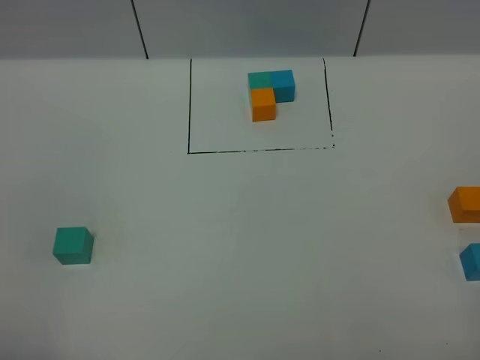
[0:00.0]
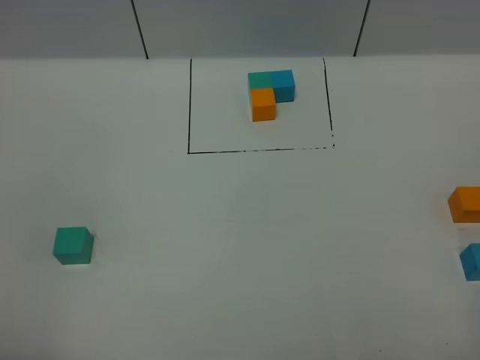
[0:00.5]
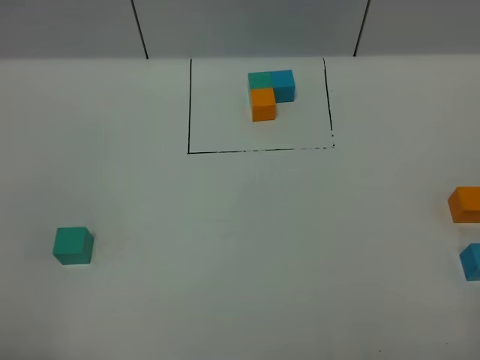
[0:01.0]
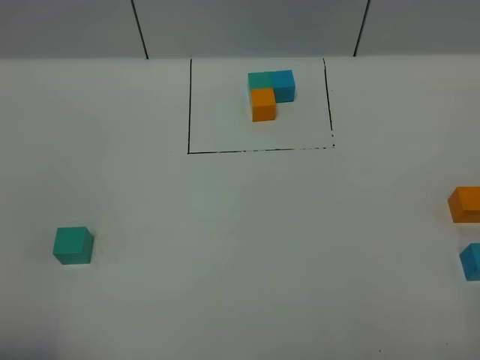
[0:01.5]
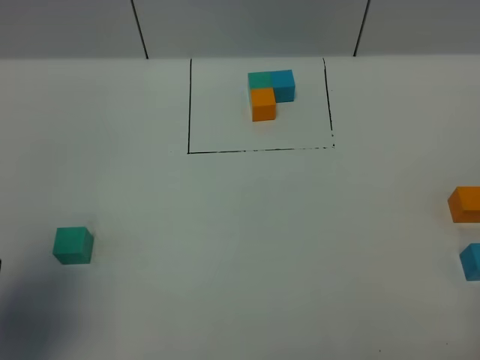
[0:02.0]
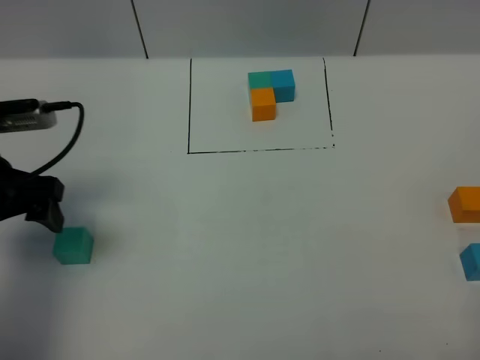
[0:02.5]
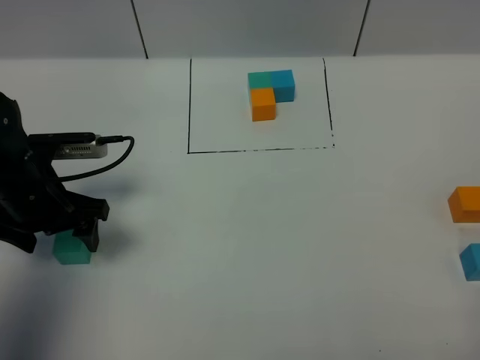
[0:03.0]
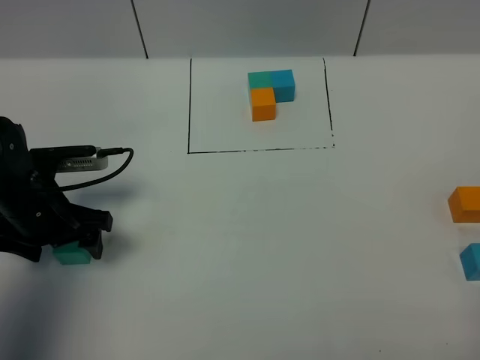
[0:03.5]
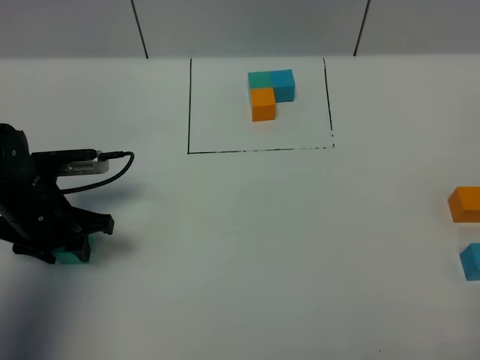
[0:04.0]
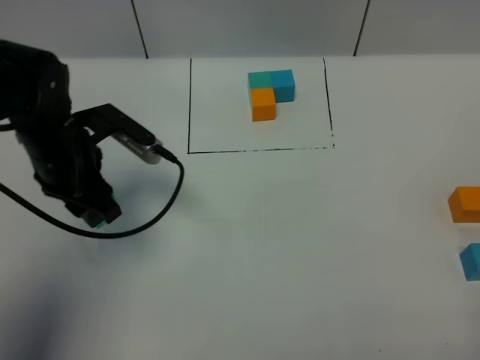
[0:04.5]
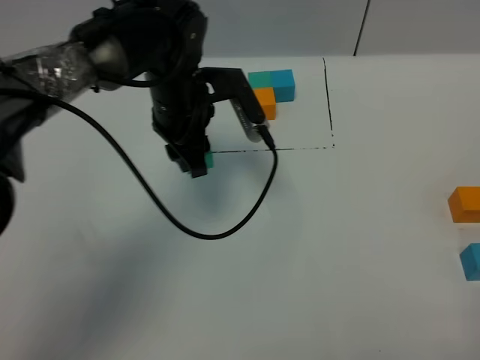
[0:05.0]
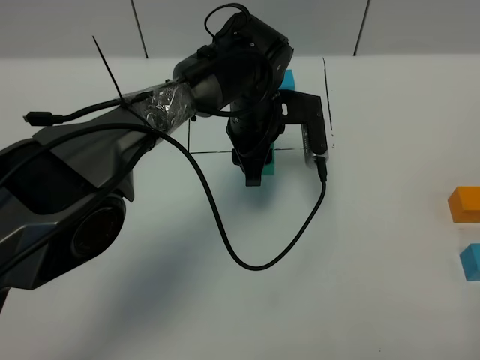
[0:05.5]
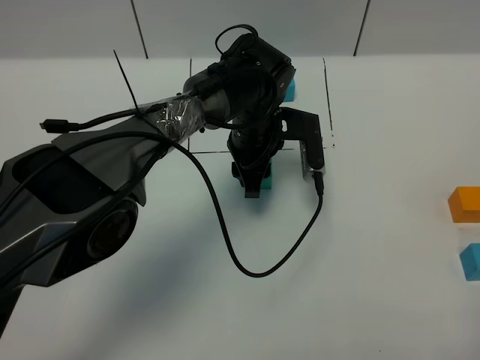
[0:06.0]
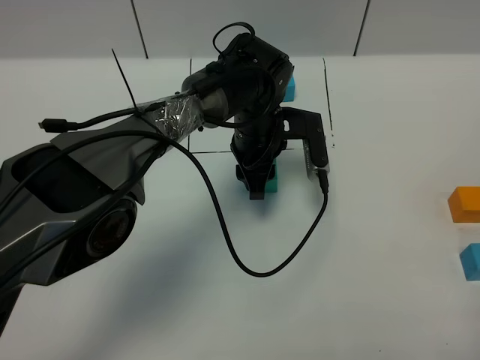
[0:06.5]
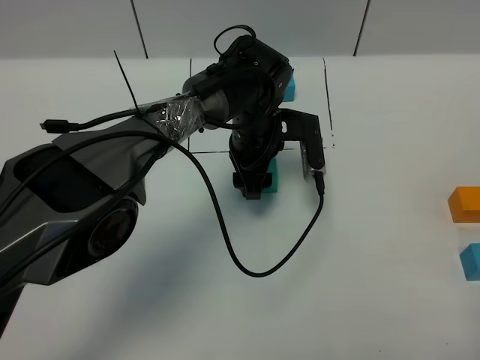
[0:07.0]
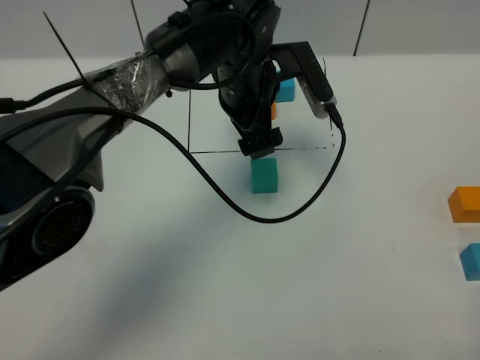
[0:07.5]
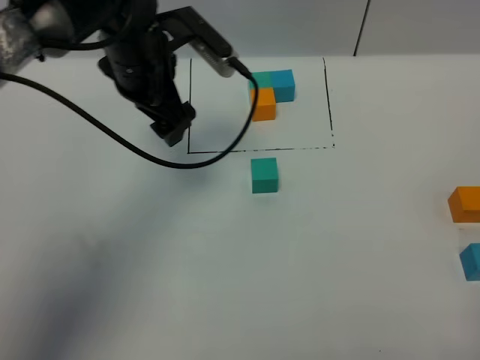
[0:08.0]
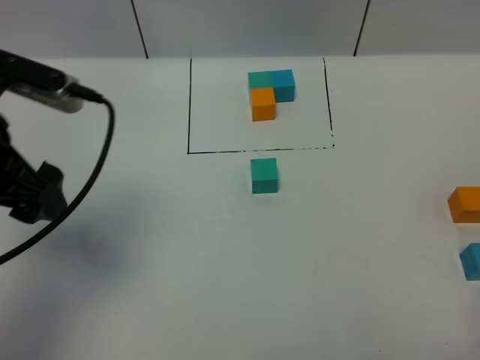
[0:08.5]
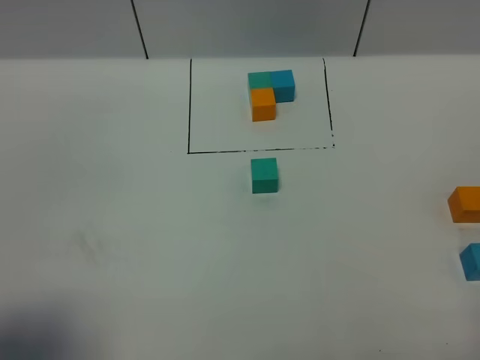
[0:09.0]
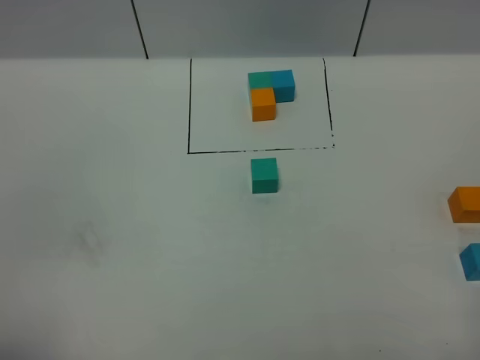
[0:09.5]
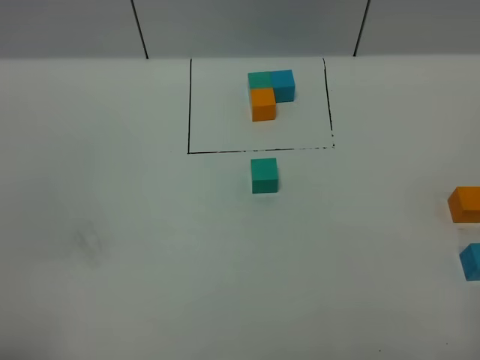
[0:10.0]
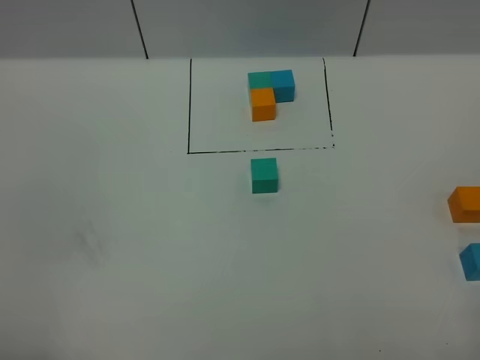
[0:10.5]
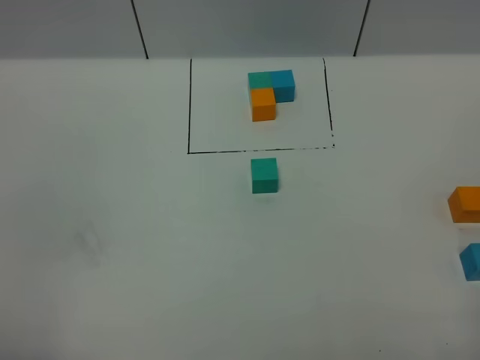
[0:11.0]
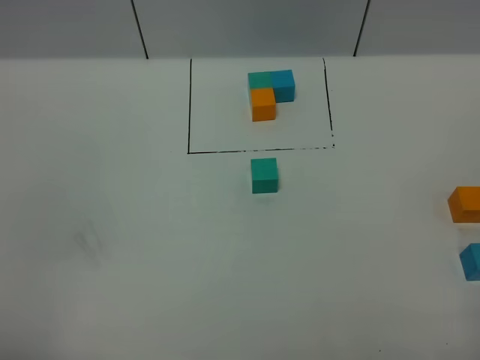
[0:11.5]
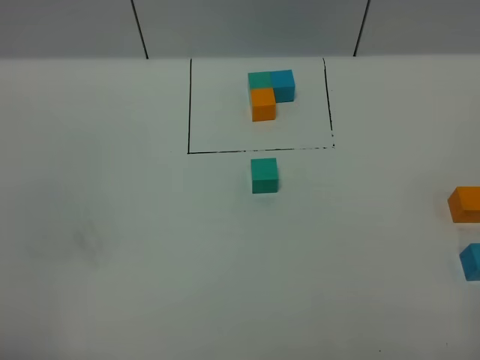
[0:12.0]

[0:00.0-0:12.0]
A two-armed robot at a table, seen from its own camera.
Task of the whole recording: According to the building block template in front, assemble the scattered blocks together.
Step, 0:00.0 to 0:06.5: Put the green build block in the center of the table.
0:00.0 to 0:02.0: The left gripper travels forward by approximately 15 cm.
0:02.0 to 0:04.0: The left gripper heads downward and forward, covering some 25 cm, and closes.
0:04.0 to 0:06.0: The left gripper heads to the right and forward, covering approximately 30 cm.
0:06.0 to 0:08.0: The left gripper travels to the left and upward by about 20 cm, and opens.
0:08.0 to 0:10.0: The left gripper travels backward and to the left by about 40 cm.

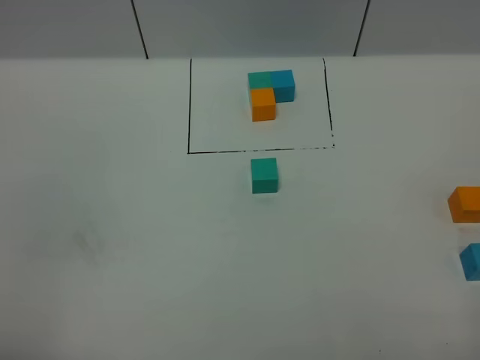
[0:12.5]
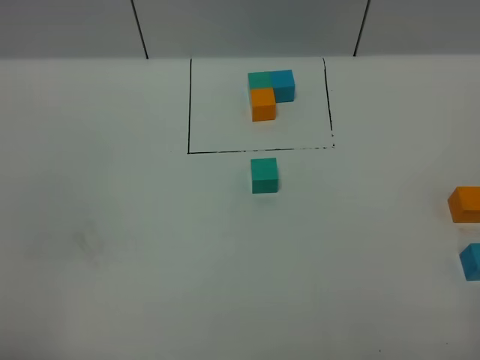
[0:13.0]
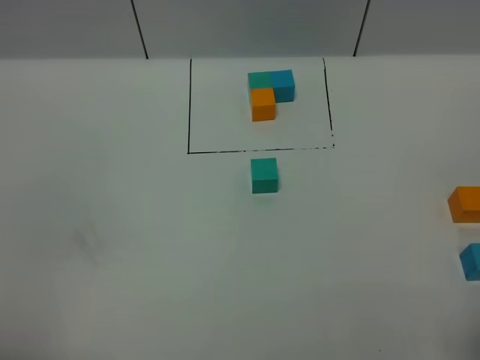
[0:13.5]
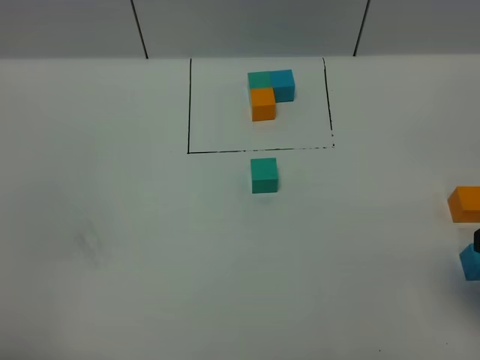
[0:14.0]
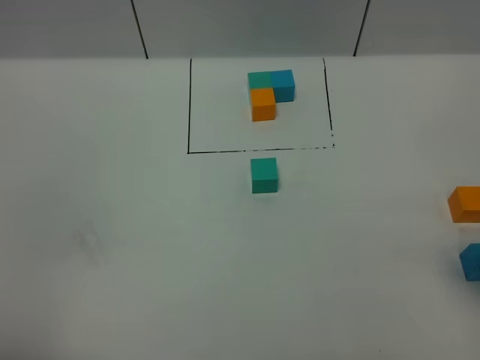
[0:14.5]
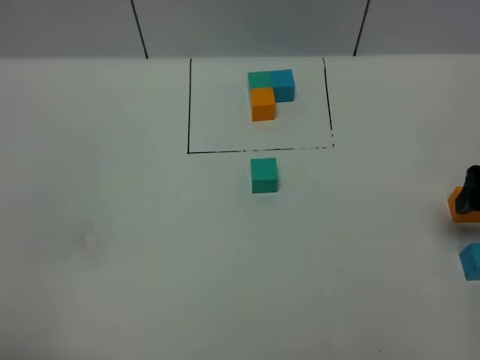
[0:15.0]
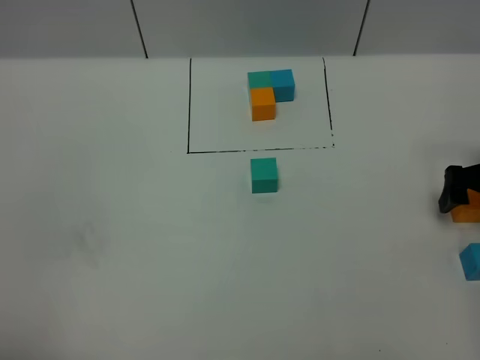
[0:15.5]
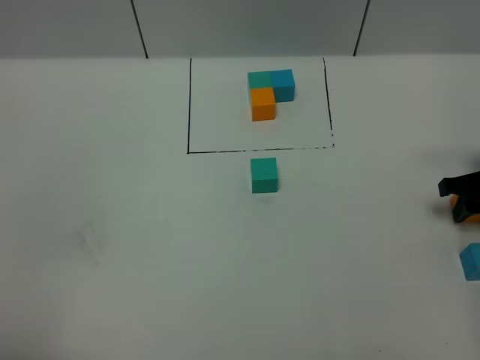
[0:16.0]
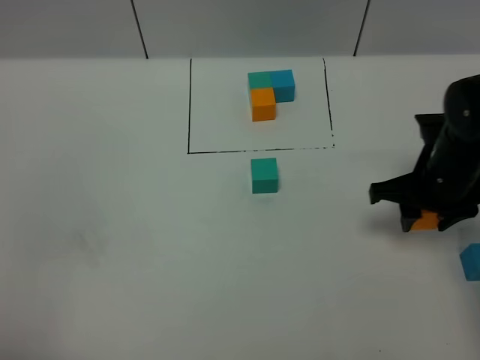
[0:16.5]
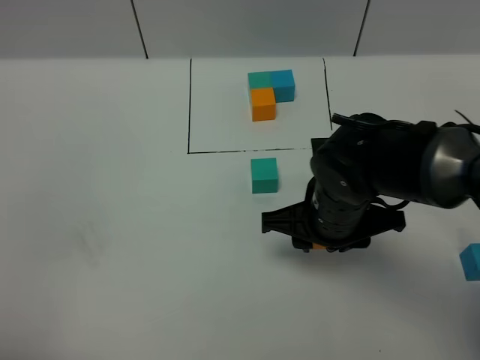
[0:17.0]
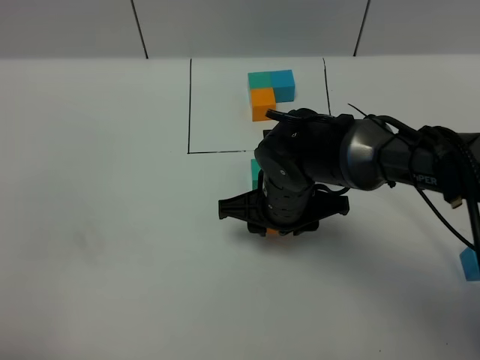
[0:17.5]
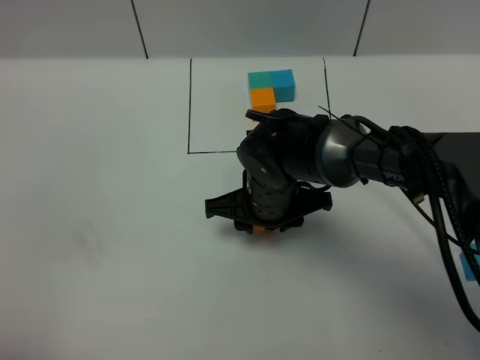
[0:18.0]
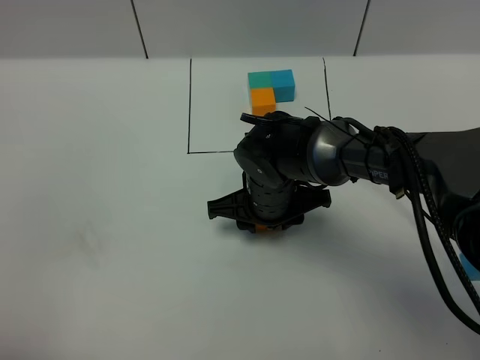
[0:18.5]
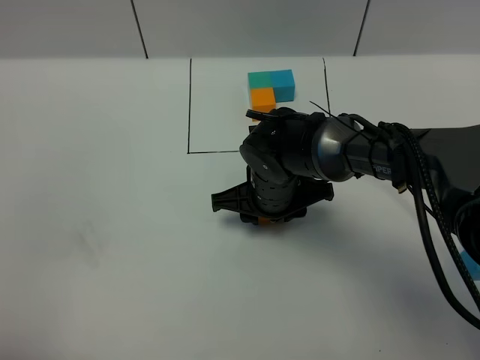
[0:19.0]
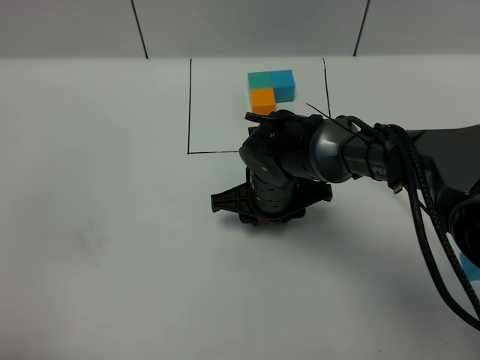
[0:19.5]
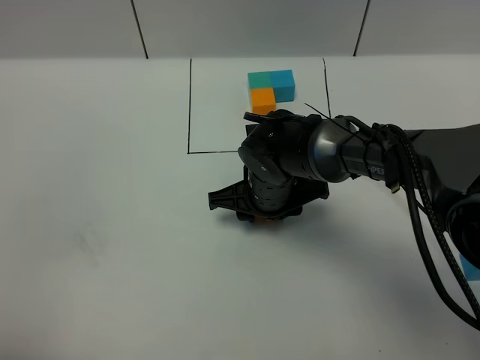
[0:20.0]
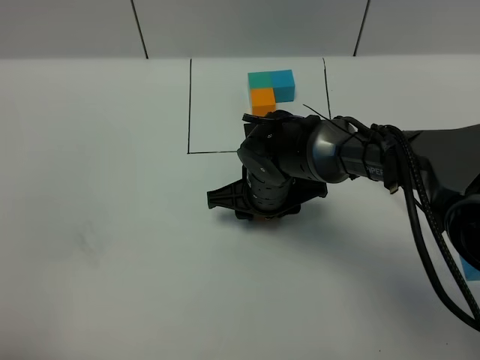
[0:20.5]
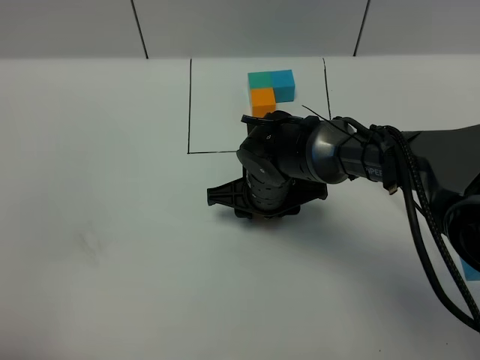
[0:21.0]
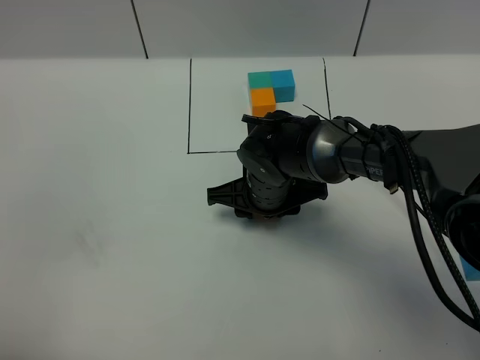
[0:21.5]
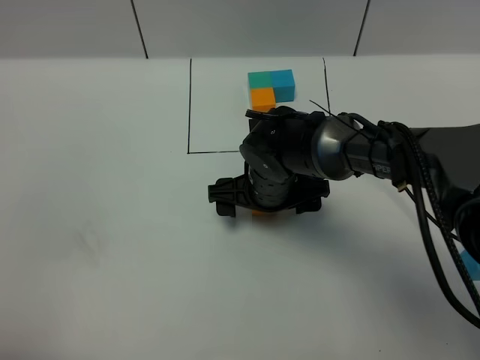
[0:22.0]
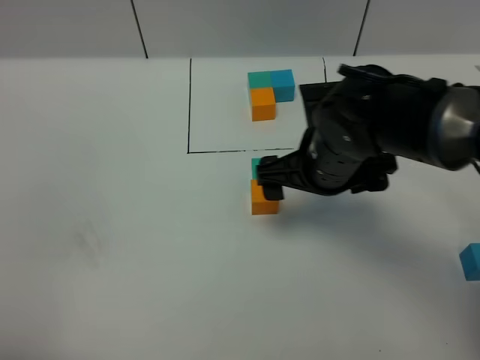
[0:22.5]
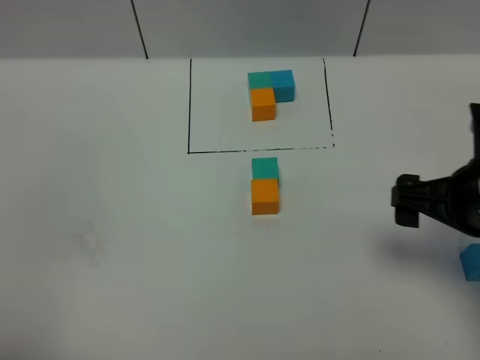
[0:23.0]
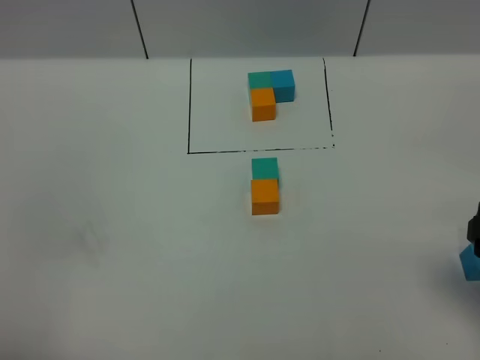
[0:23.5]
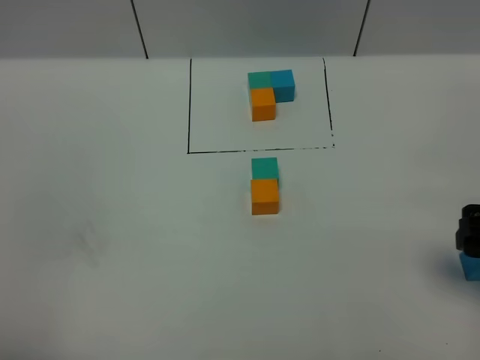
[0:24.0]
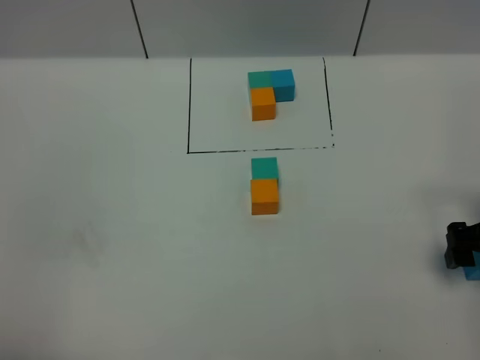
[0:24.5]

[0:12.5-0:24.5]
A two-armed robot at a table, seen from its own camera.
Task of the whole recording: According to the building block template in front, assemble the scattered blocks together.
Step, 0:12.5 to 0:21.0: Put the orange build block on the behind of the green build block.
0:14.5 to 0:16.5: The right gripper is displaced forward, downward and to the left by some 20 cm, and closes.
0:16.5 to 0:18.5: The right gripper heads to the left, covering some 20 cm.
0:18.5 to 0:20.5: The grippers move only a little.
0:20.5 to 0:22.5: The right gripper is displaced upward and to the right by approximately 15 cm, and opens up.
0:22.5 to 0:24.5: The right gripper heads to the right, covering about 20 cm.

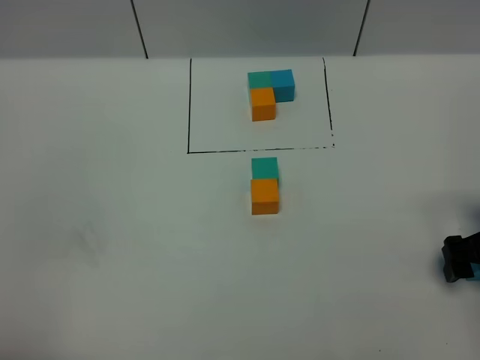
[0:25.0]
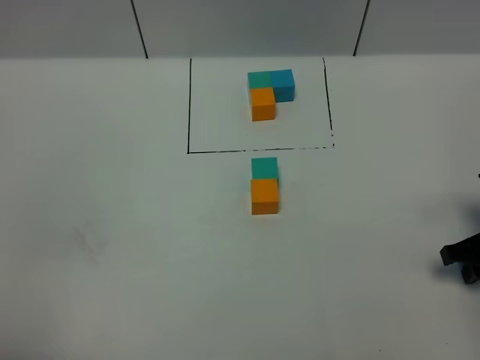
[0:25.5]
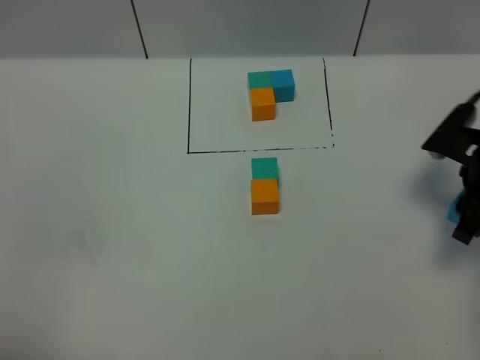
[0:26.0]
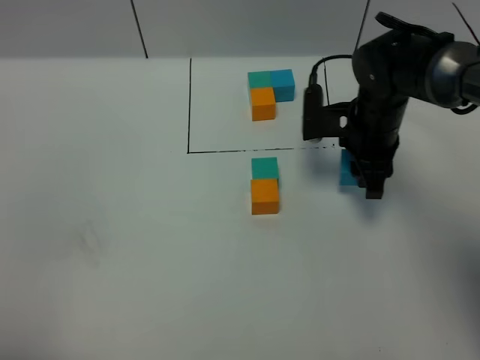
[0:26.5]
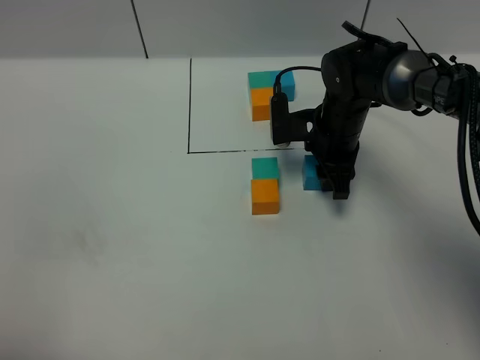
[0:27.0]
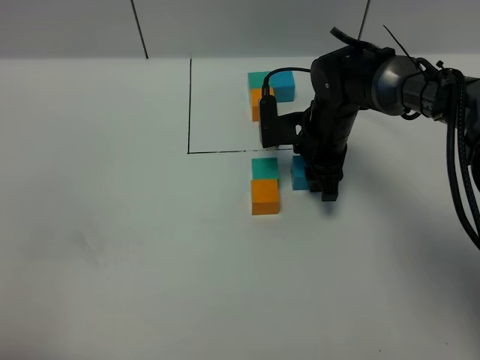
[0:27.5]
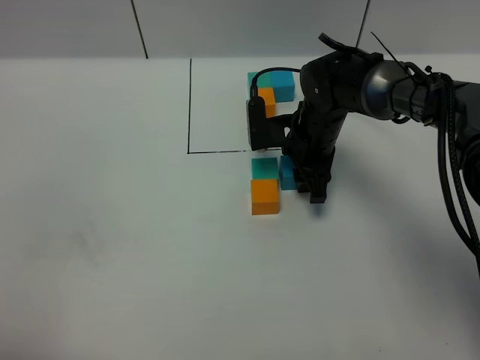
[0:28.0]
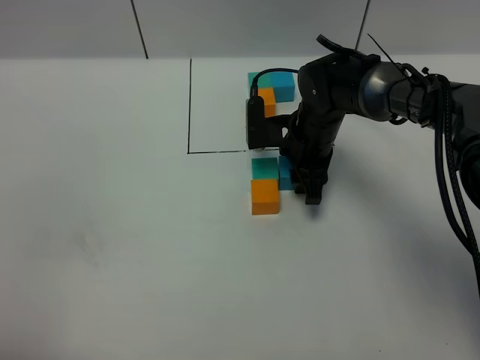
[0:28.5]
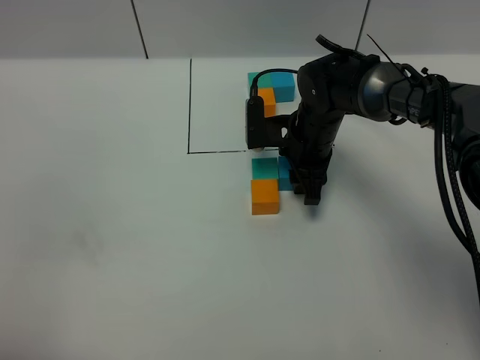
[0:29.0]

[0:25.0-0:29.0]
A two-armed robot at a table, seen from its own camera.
Task of the whole recording: According to the building block template in front, assemble the scattered blocks together.
0:25.0 to 0:27.0: The right gripper goes some 25 cm to the left and forward, and closes.
0:27.0 to 0:29.0: The grippers stay close to where they were, moving slightly.
